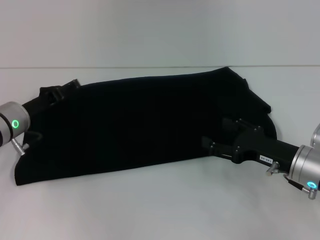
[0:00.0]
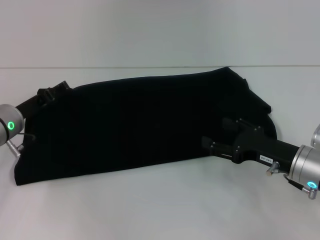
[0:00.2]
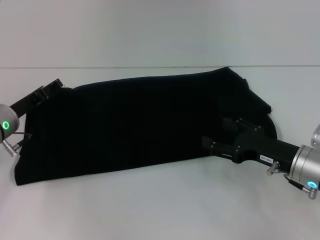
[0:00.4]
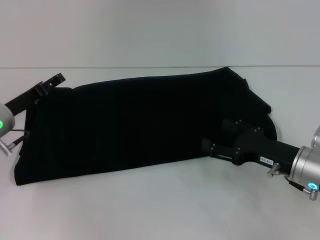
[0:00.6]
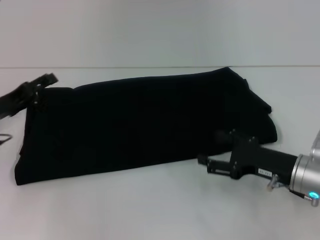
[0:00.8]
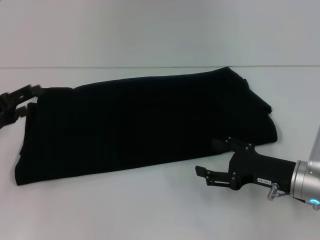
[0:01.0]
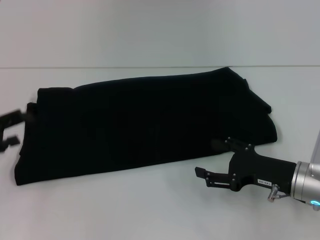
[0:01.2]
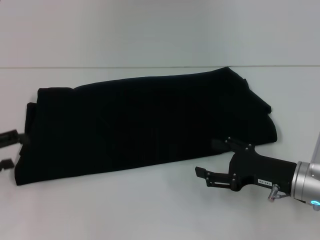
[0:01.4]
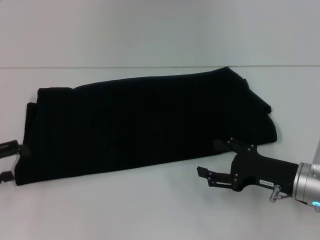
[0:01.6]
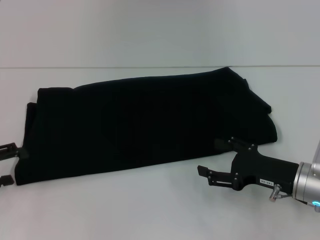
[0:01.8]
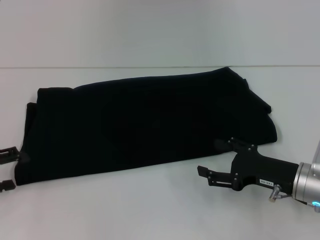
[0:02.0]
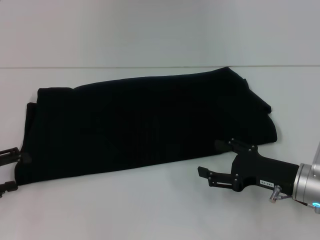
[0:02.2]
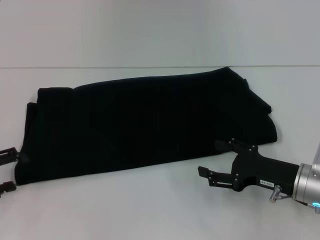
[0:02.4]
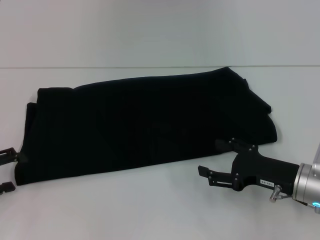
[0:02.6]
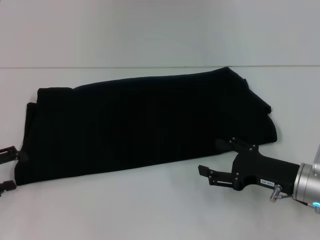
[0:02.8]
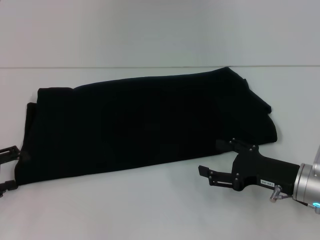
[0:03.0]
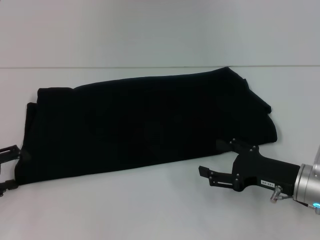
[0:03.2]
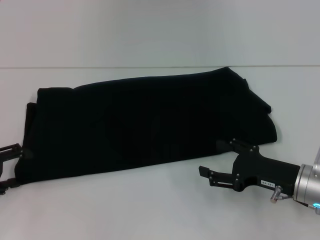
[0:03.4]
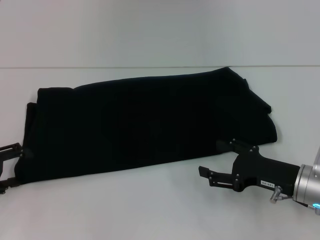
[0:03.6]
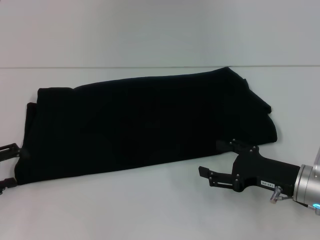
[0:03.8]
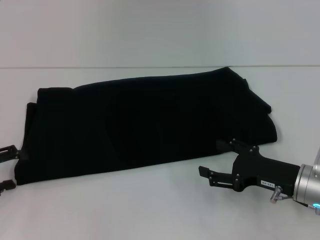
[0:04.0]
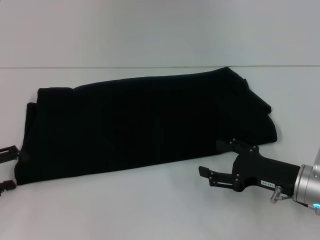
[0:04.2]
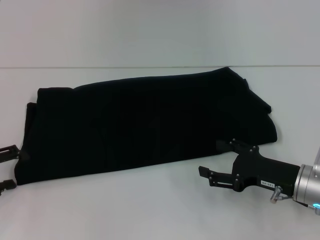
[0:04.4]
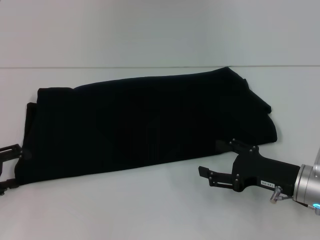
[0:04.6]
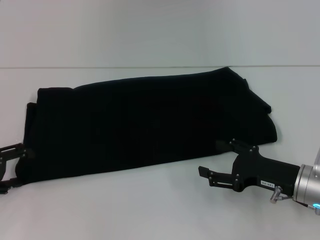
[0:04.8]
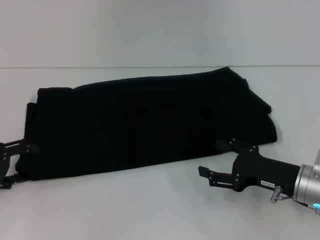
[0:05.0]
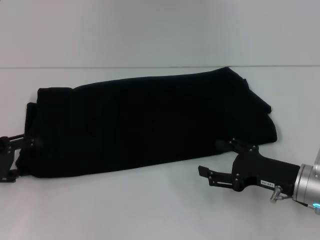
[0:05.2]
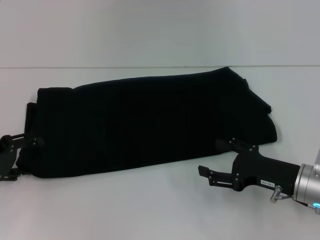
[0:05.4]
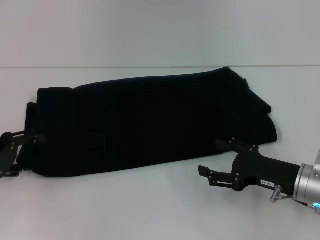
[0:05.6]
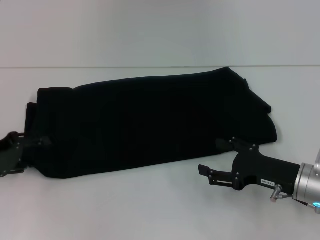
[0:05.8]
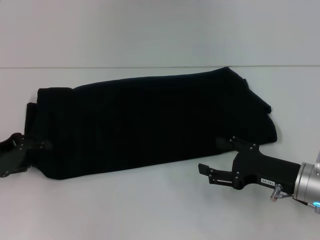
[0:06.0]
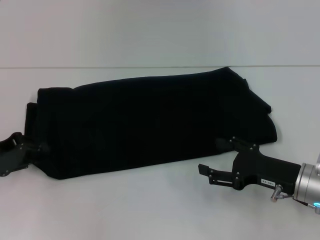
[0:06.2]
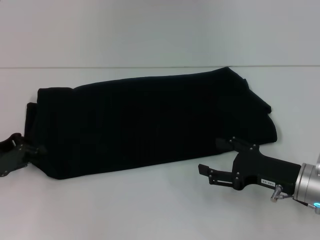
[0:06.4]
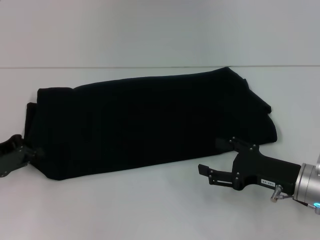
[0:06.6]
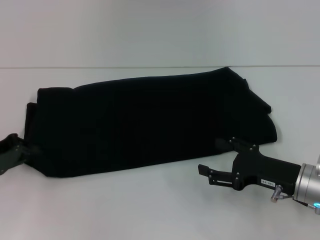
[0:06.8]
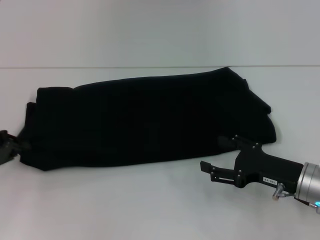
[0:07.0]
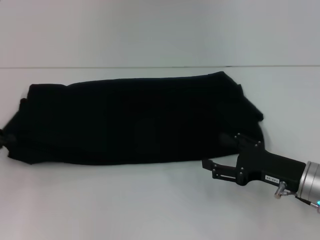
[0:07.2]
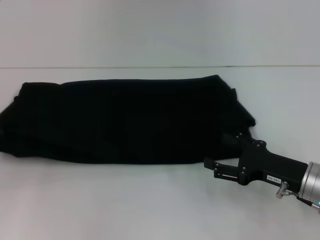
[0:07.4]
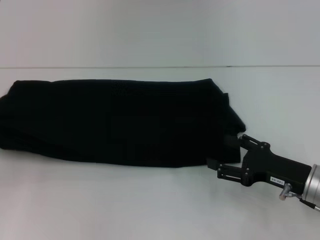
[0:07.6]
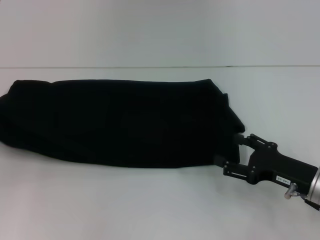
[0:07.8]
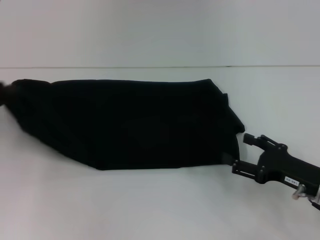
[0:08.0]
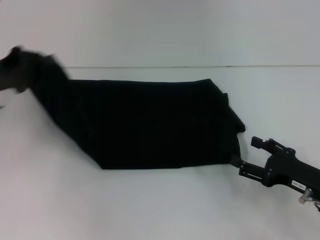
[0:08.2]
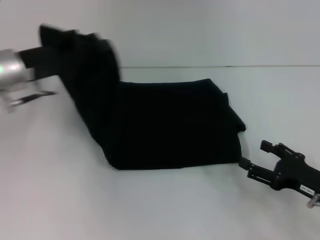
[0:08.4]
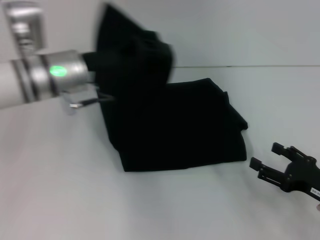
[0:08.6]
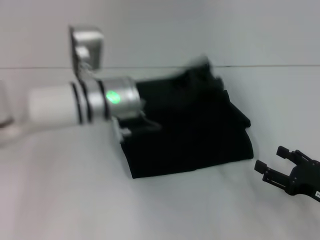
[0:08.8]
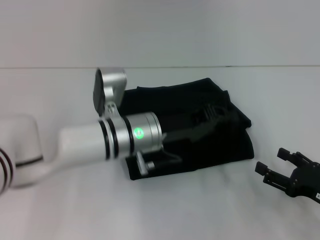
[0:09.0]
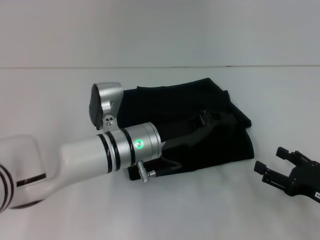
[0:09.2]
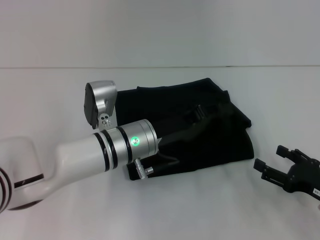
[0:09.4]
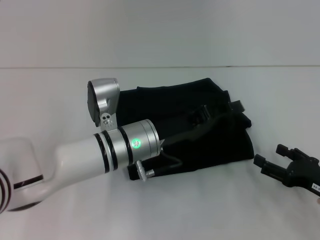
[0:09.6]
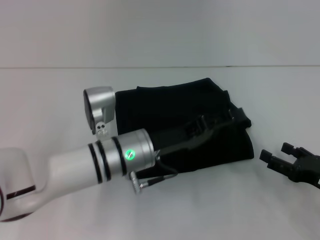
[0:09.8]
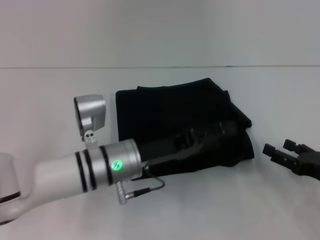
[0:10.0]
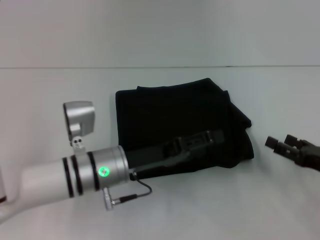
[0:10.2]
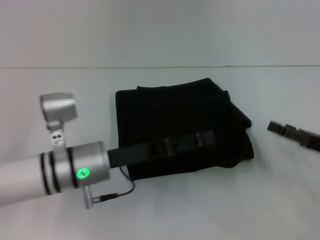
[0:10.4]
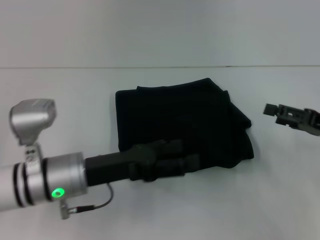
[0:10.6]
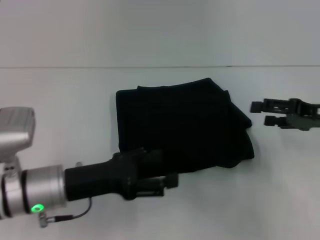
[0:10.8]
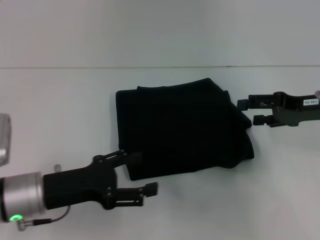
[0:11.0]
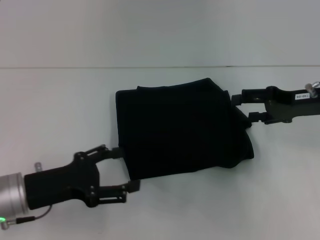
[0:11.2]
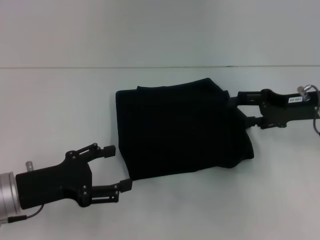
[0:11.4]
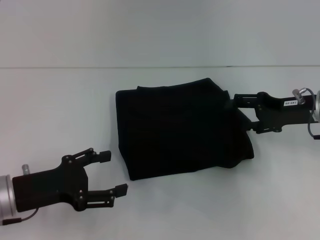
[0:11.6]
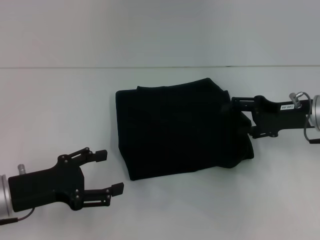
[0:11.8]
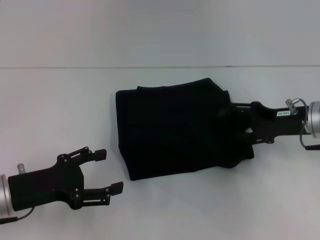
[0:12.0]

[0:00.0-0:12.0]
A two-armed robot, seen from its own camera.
Step, 0:00.0 to 0:10.0: Fold the clothes with your left hand.
0:00.0 to 0:01.6: The left gripper moves backward and to the left, about 15 cm.
0:01.6 to 0:03.0: The grippers make only small movements.
0:03.0 to 0:04.4: The two grippers keep their place.
0:04.4 to 0:06.0: The grippers move only a little.
0:06.0 to 0:07.6: The left gripper shifts approximately 5 cm to the left, and closes.
0:07.6 to 0:09.0: The left gripper shifts roughly 35 cm to the right. The right gripper moves to the right, approximately 5 cm.
0:09.0 to 0:10.4: The left gripper travels to the left by some 5 cm, and opens up. Meanwhile the right gripper heads forward, covering some 5 cm.
0:10.4 to 0:12.0: The right gripper shifts roughly 10 cm forward and to the left. Meanwhile the left gripper is displaced to the left and backward by about 15 cm.

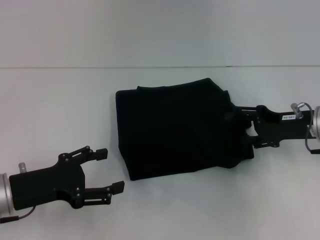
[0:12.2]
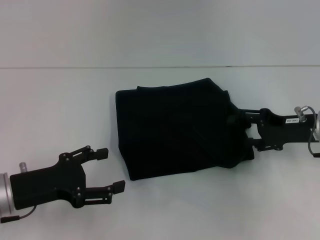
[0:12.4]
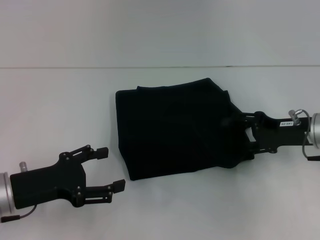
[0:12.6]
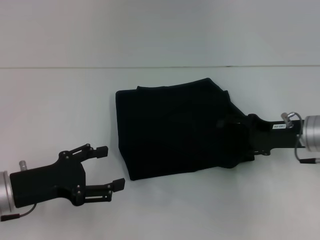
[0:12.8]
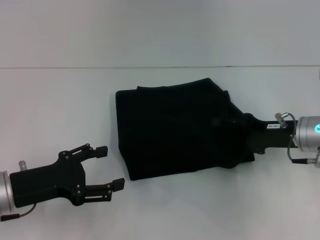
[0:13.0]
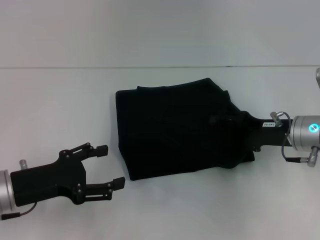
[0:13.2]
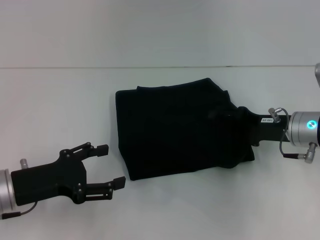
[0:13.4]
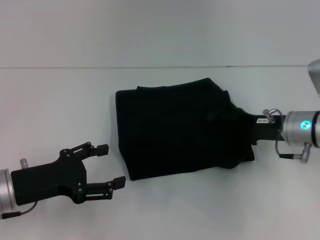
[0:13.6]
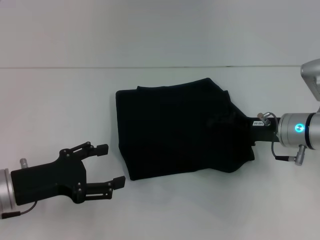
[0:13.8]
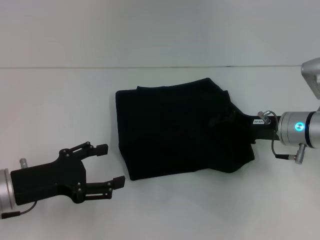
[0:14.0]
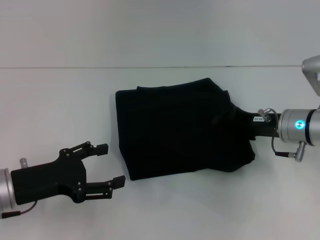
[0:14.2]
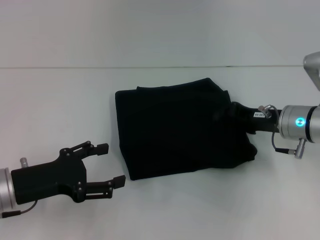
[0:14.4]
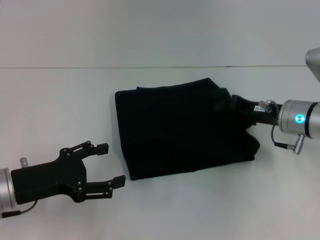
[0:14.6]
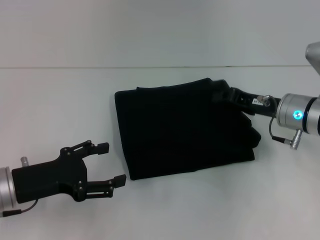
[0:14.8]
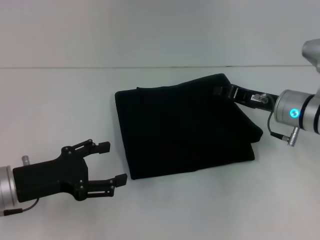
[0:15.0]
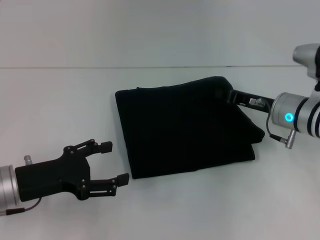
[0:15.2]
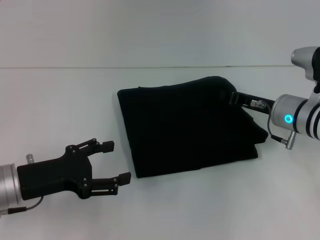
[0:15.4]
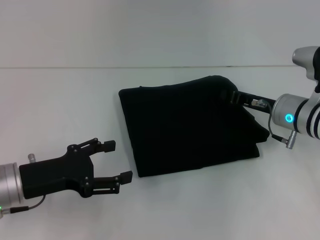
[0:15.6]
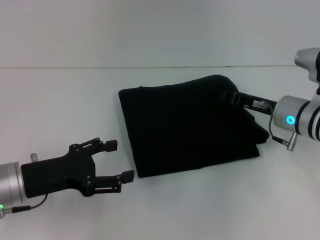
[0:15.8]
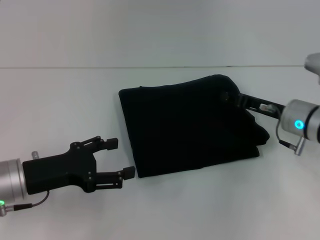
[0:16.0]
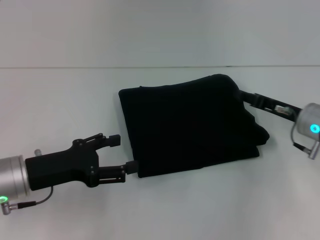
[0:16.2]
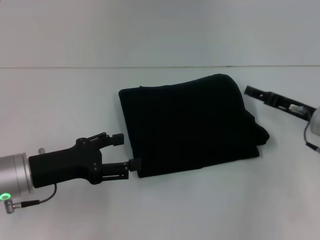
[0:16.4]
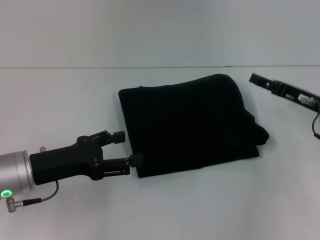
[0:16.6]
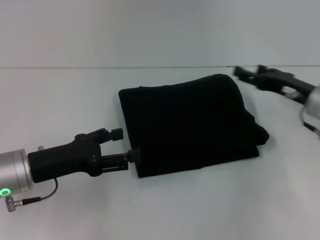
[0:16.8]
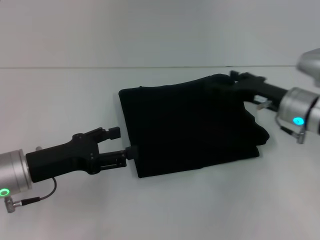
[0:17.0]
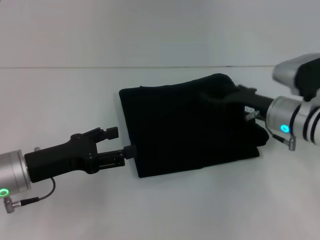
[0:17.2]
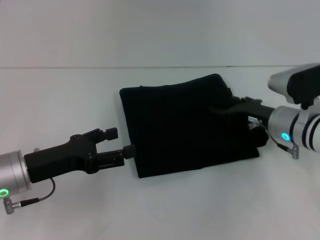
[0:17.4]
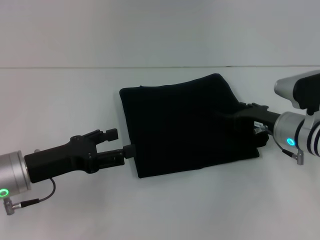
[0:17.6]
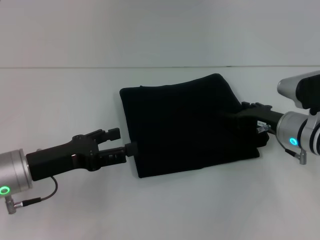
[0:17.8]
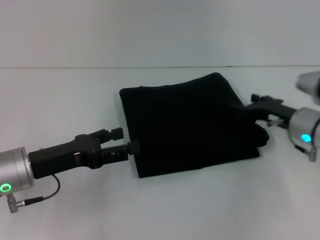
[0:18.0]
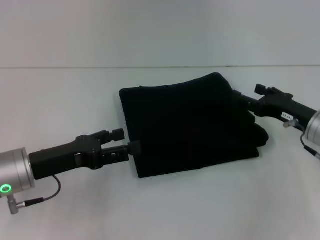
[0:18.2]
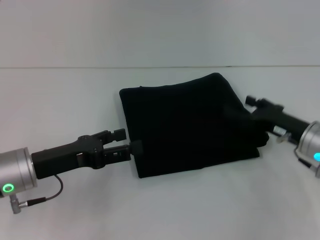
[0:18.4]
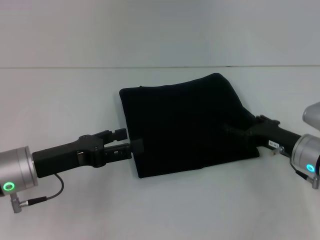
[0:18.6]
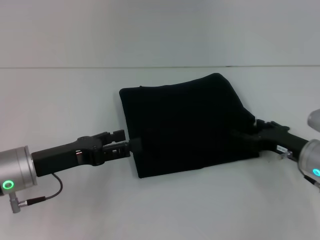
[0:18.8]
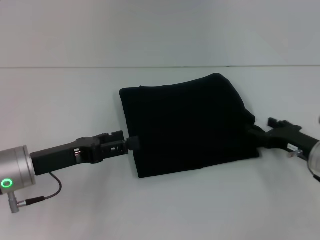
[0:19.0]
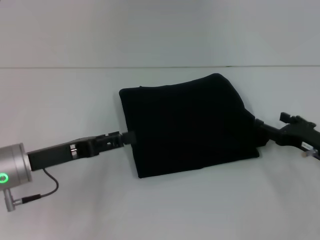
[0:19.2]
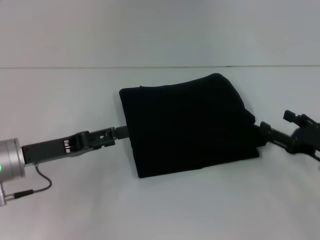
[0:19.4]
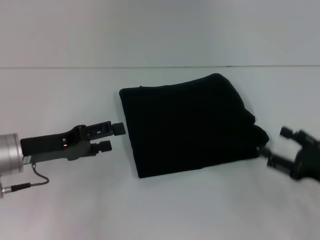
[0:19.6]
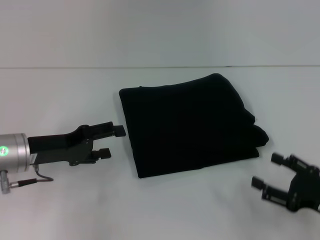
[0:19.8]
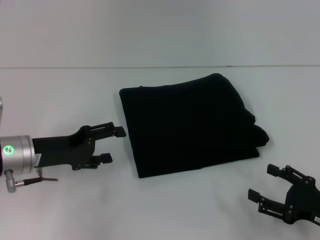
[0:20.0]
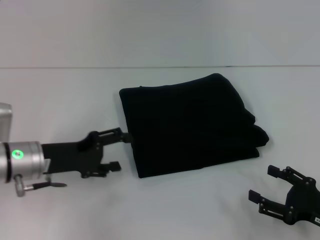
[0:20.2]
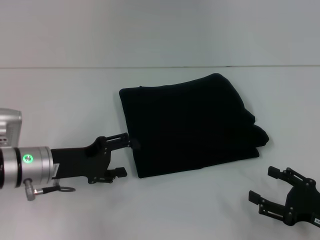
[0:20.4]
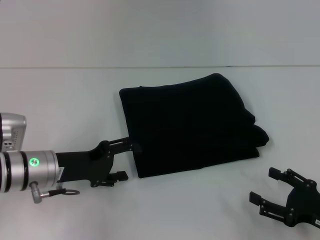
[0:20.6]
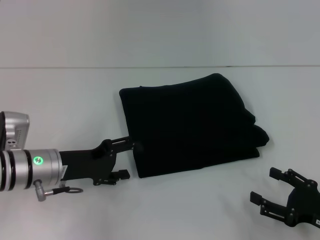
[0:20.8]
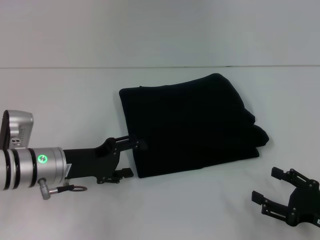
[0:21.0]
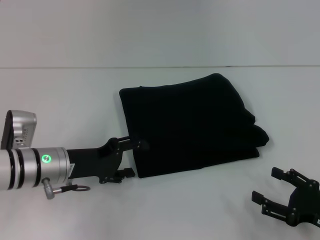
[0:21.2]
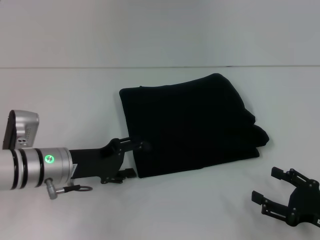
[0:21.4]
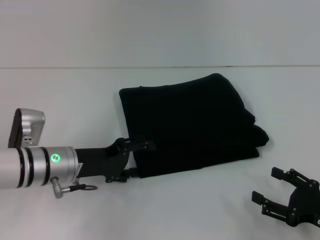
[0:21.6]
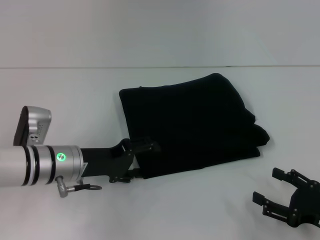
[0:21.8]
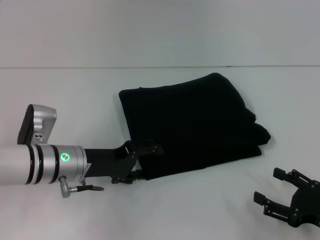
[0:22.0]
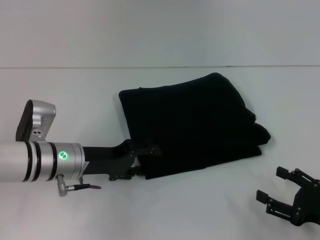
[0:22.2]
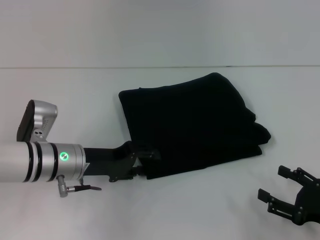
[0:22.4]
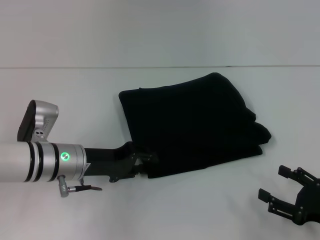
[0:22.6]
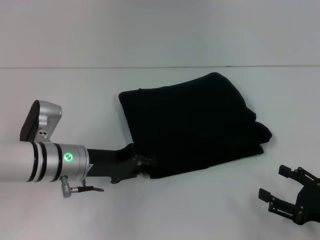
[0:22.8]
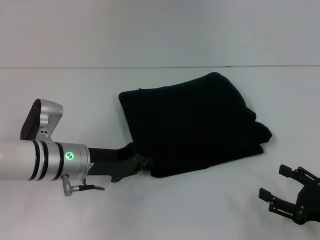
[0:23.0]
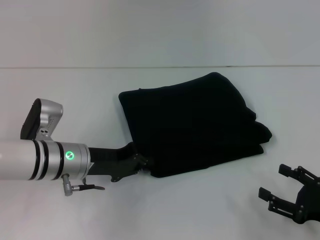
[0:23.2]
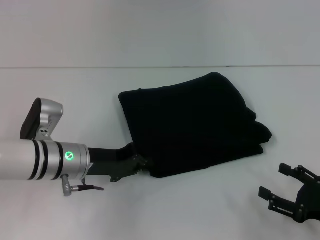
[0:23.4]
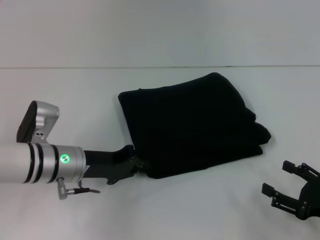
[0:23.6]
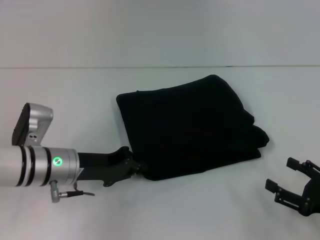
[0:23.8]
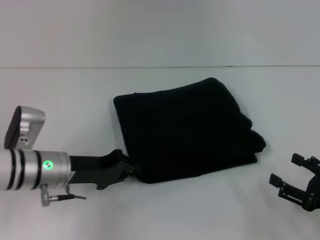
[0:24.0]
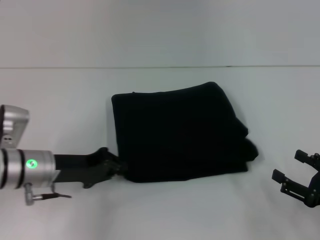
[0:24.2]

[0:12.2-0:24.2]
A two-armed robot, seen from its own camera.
0:12.2 to 0:13.8: The right gripper ends up approximately 5 cm from where it was.
0:13.8 to 0:15.2: The right gripper closes its fingers.
0:15.2 to 0:16.6: The right gripper moves to the right, roughly 5 cm, and opens.
0:16.6 to 0:18.2: The right gripper travels to the left and back again, roughly 10 cm each way.
0:18.2 to 0:19.8: The right gripper is displaced backward by approximately 15 cm.
0:19.8 to 0:21.2: The left gripper ends up roughly 5 cm from where it was.
0:21.2 to 0:22.6: The left gripper closes.
0:22.6 to 0:24.2: The left gripper closes its fingers.
